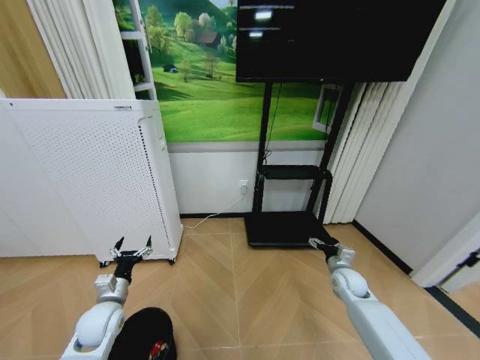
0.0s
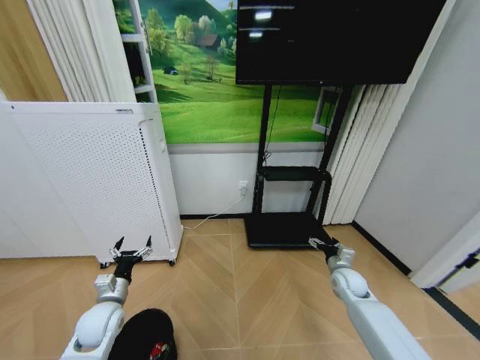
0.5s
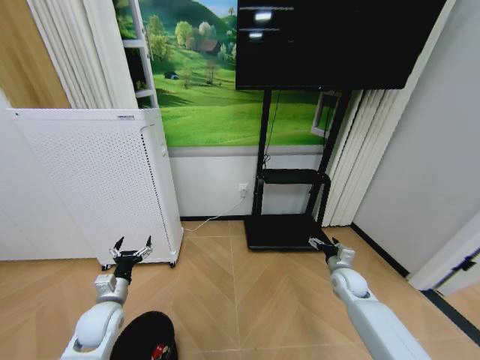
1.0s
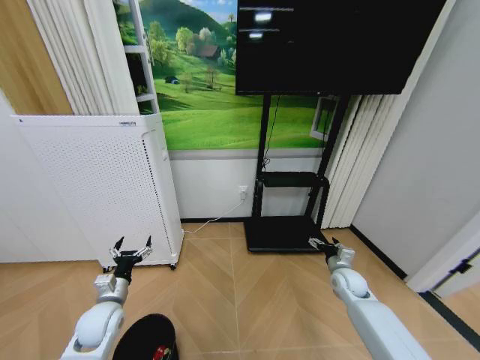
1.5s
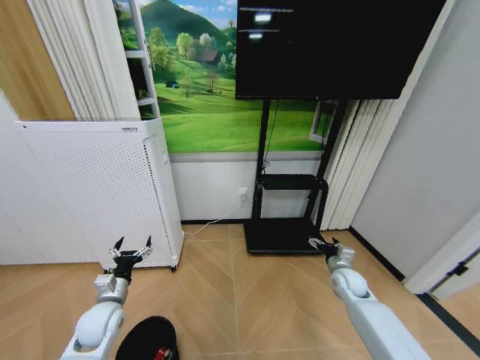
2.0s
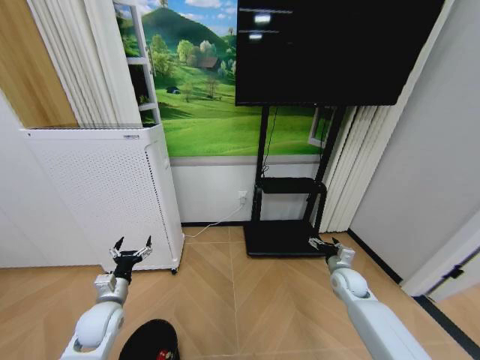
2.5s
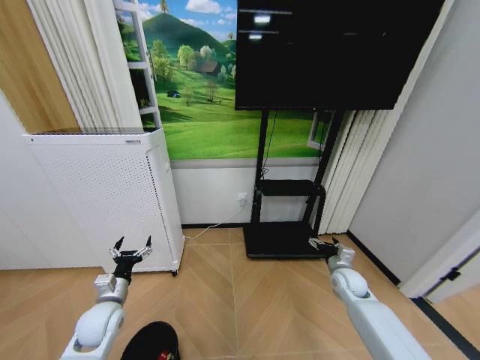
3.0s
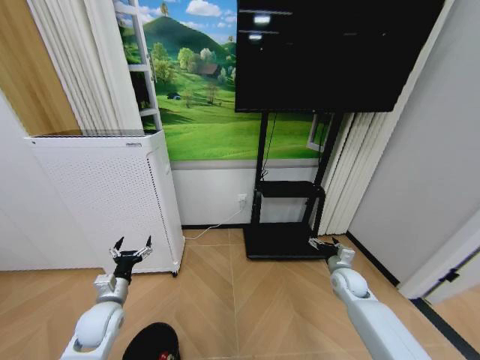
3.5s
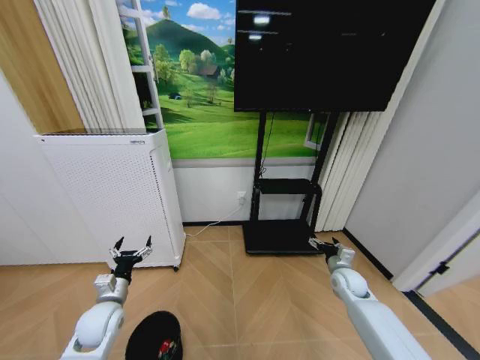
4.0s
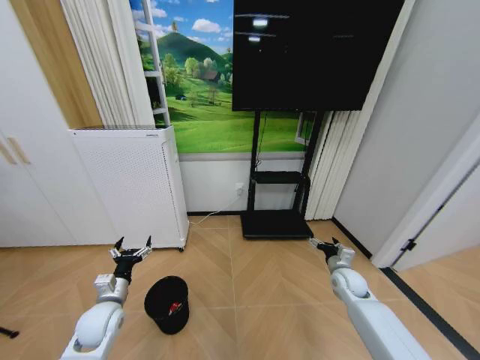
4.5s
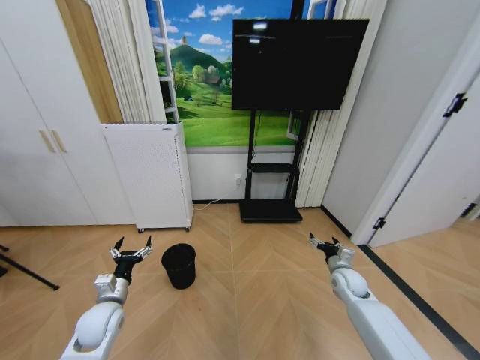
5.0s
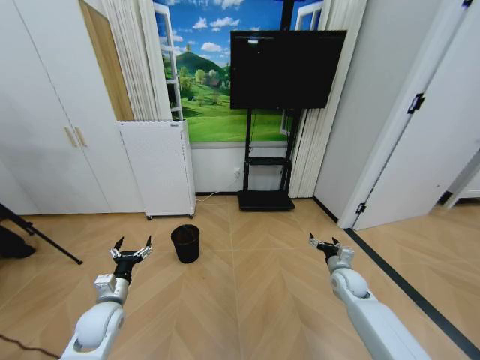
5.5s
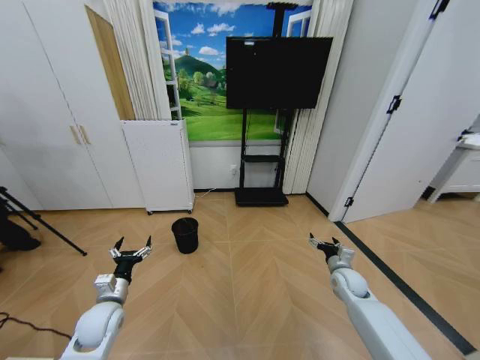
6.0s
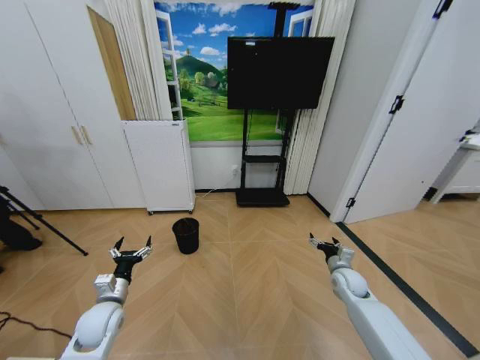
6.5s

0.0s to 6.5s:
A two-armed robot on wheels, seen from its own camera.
Task of the whole recording: Pick up the trash bin and place the garbage on the floor into it.
0.0s to 2.0s: Neither gripper changes place.

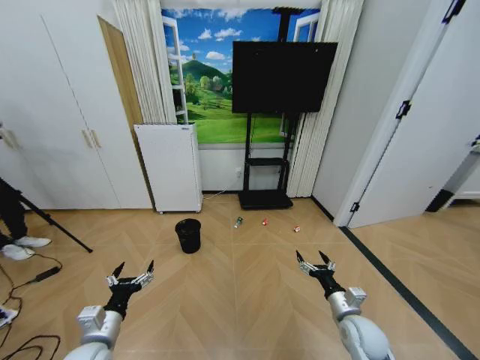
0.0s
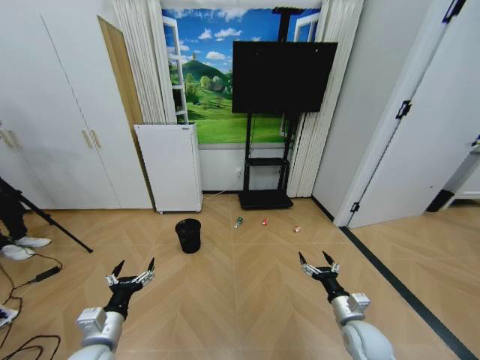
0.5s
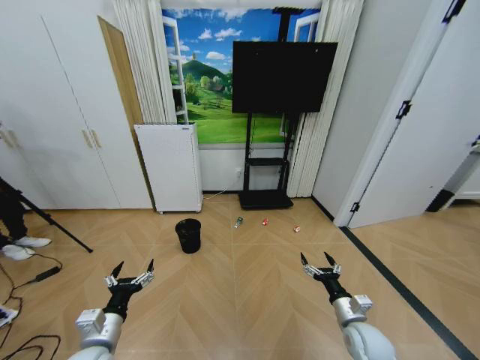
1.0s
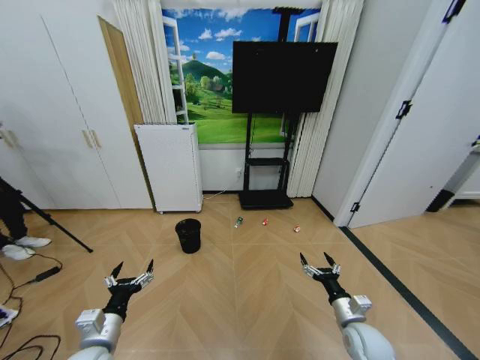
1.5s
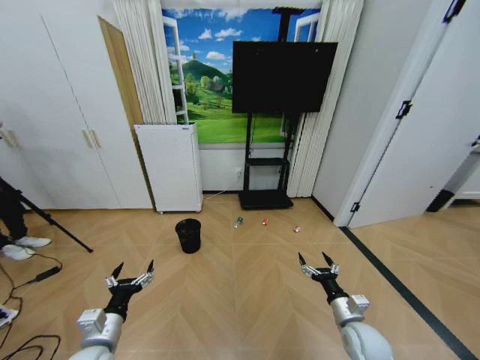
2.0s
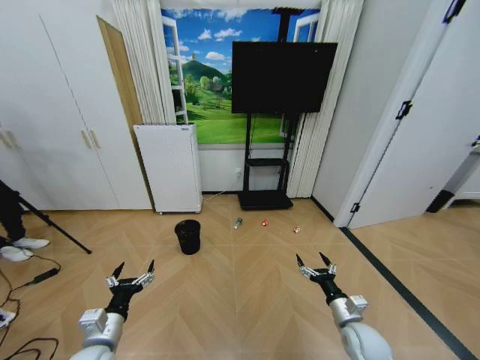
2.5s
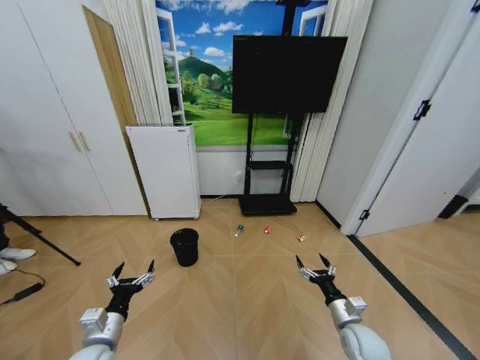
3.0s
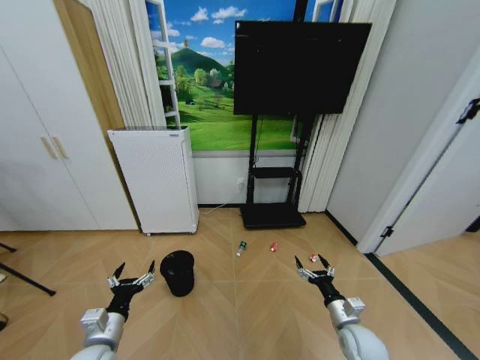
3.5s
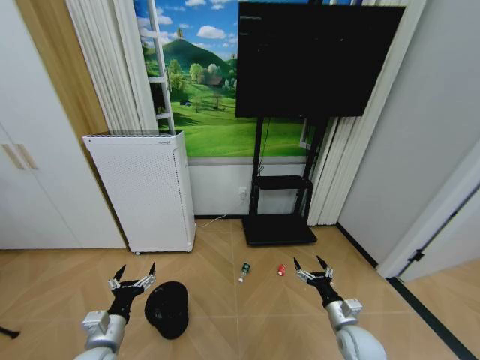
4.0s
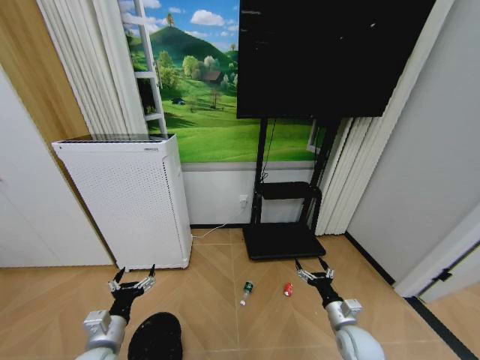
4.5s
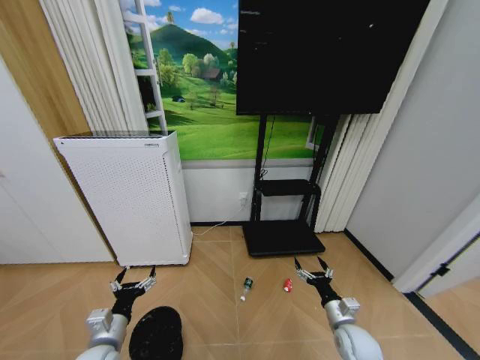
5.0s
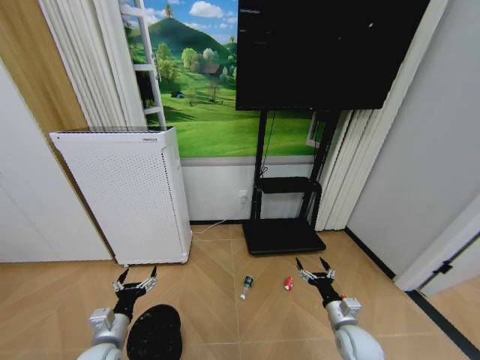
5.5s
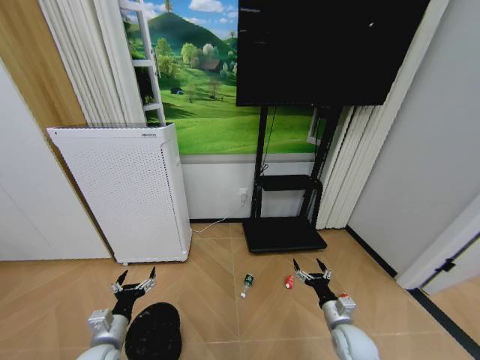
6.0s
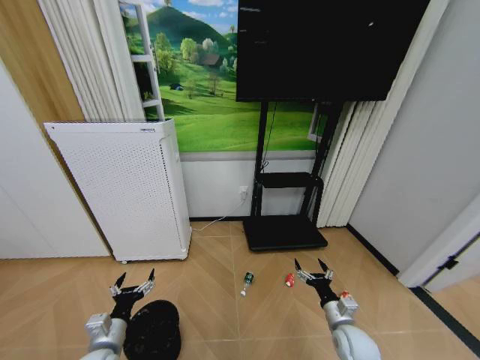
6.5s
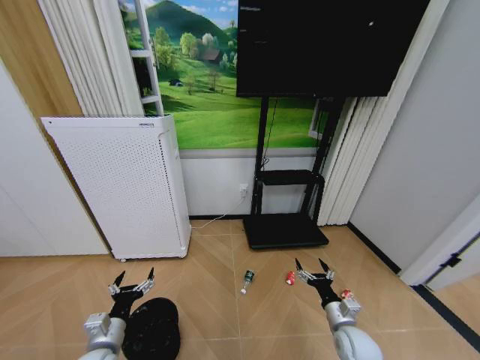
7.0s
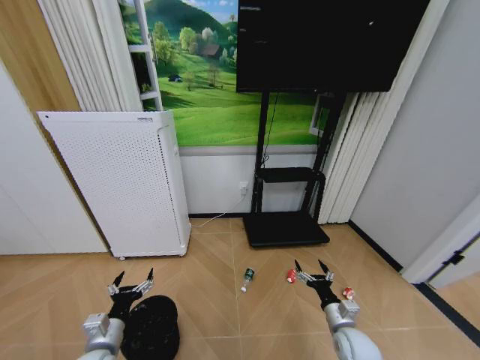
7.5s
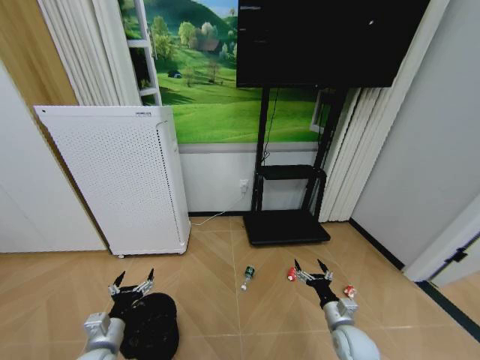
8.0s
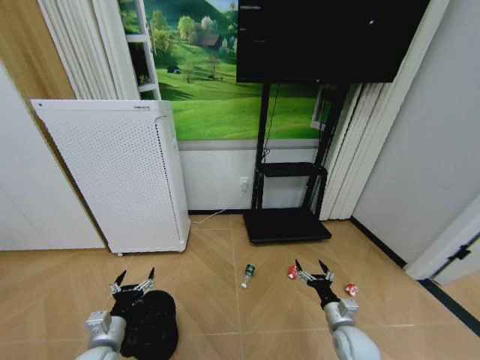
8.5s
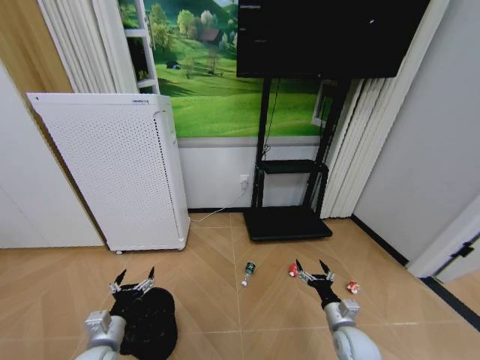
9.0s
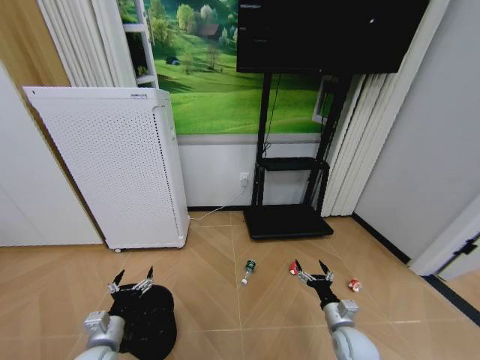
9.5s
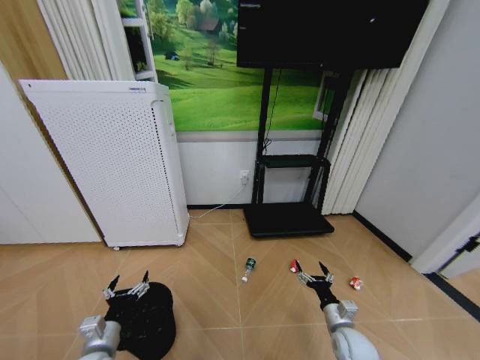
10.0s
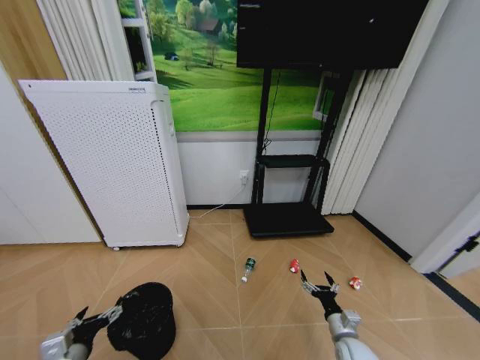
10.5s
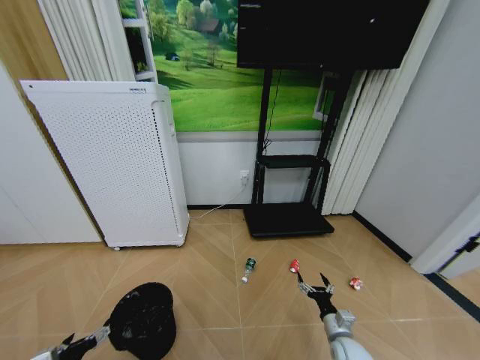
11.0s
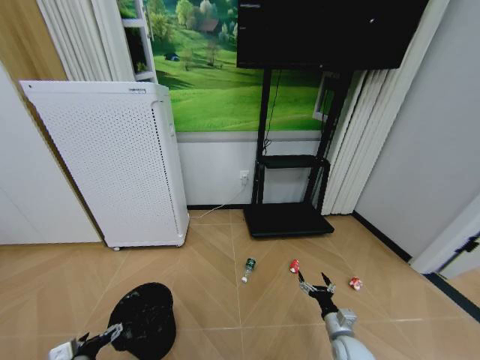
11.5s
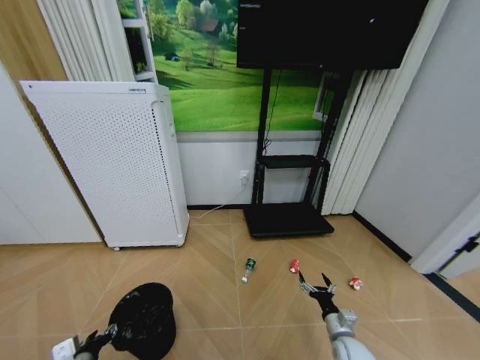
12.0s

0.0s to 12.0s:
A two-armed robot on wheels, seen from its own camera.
Task of the whole recording: Pick up the trash bin and place the garbage on the floor into it.
6.0s to 10.0s: Both grippers stay about where they are.
10.0s to 12.0s: The left gripper closes up.

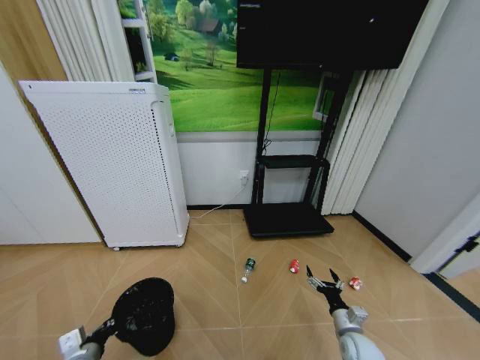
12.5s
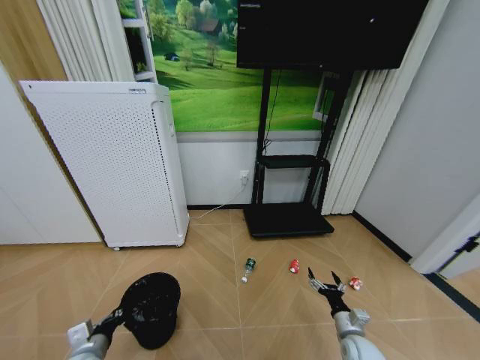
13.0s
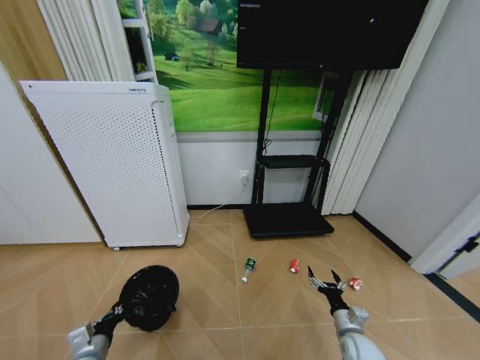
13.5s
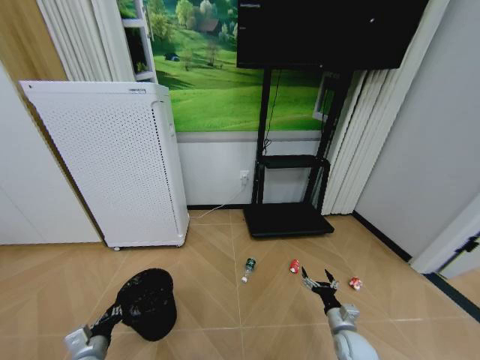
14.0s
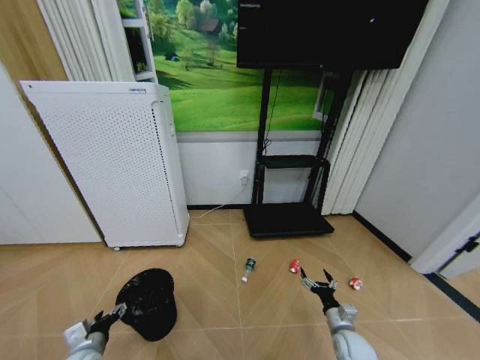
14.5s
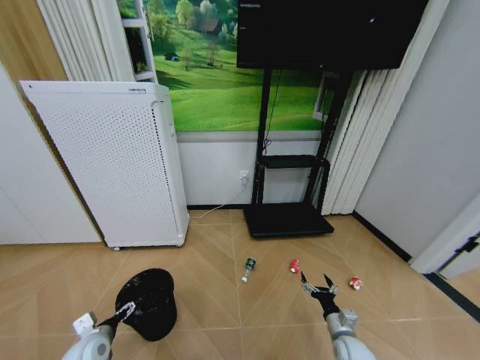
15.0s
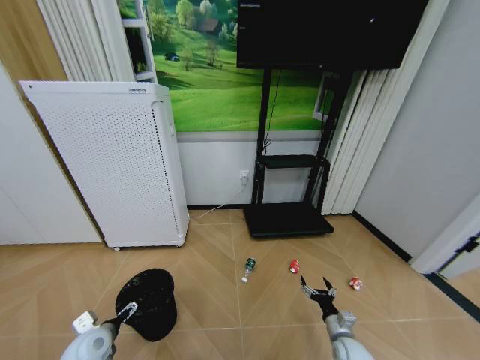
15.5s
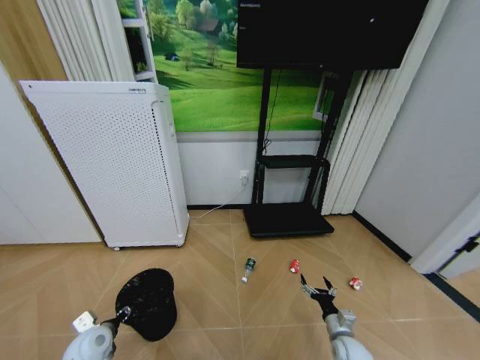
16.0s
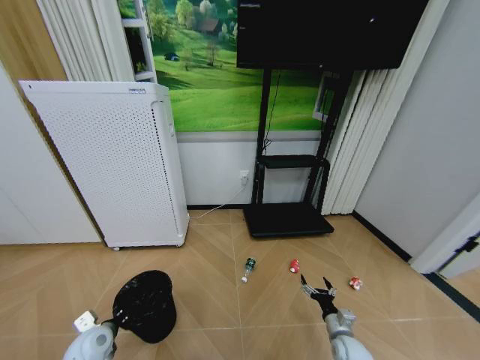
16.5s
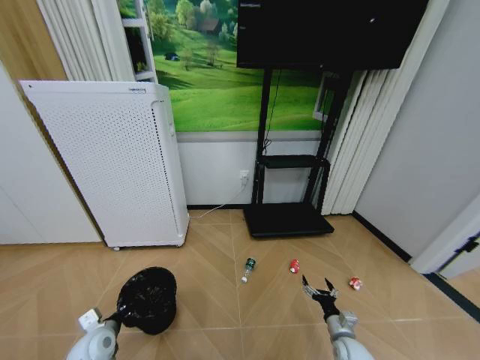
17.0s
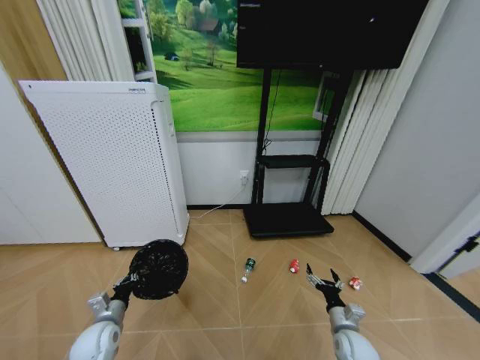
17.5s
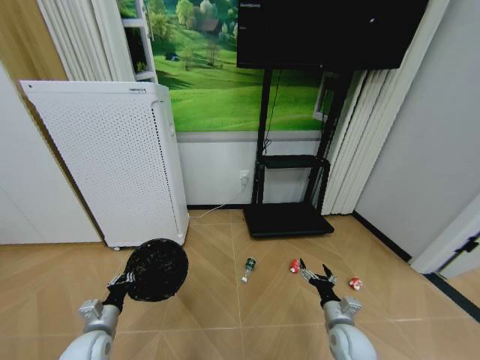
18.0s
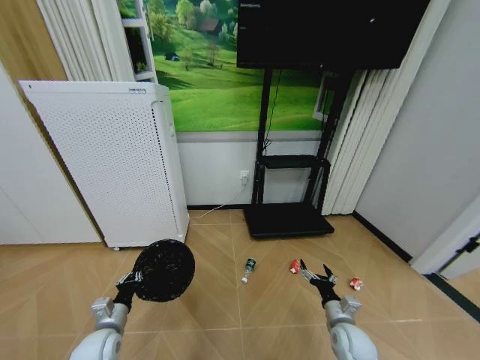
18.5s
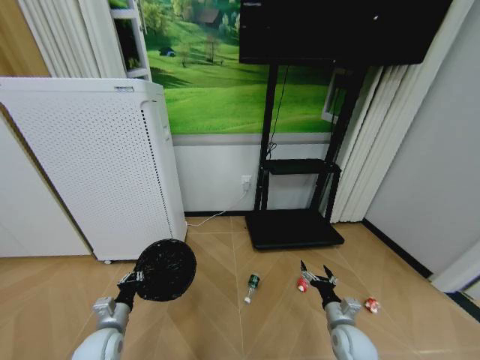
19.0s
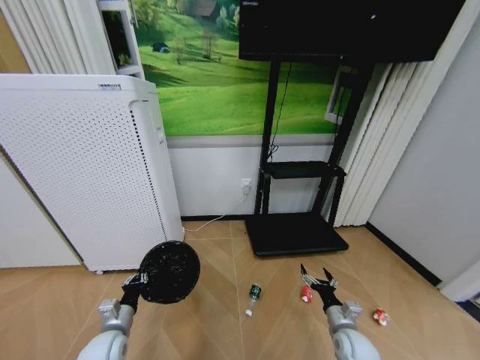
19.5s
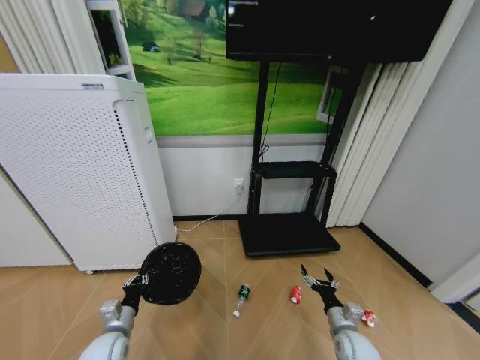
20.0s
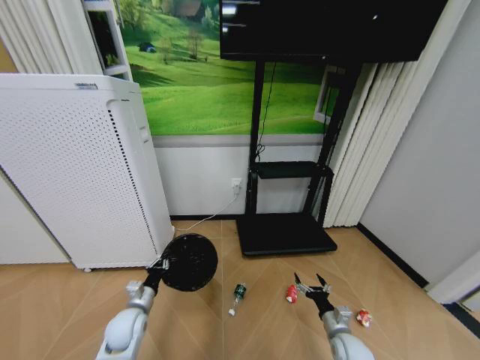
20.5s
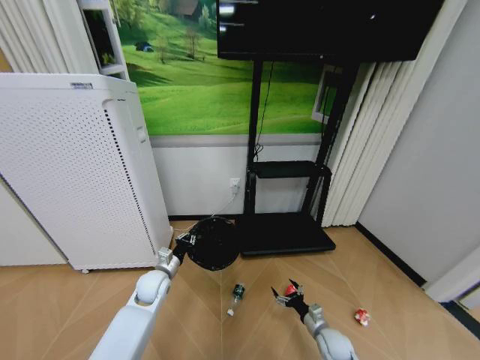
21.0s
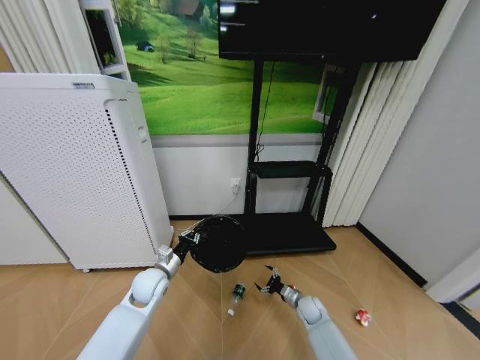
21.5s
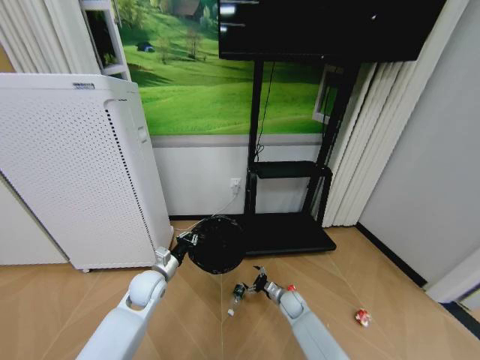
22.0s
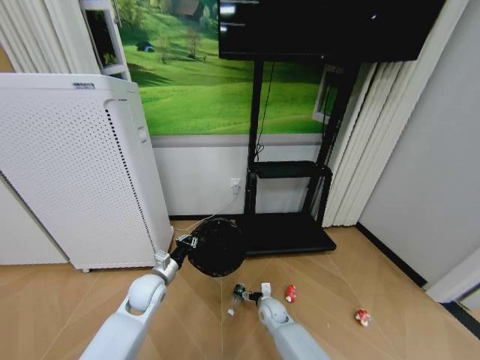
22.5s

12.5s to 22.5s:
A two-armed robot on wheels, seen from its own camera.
Task of the whole recording: Pick up the trash bin and place the garbage on the floor into it.
12.5s to 14.5s: The left gripper opens up.
14.5s to 16.5s: The left gripper closes its fingers.
16.5s to 18.5s: The right gripper is displaced upward by roughly 10 cm.
18.5s to 20.5s: The right gripper goes some 5 cm downward, while the left gripper goes about 5 cm forward.
20.5s to 22.5s: The right gripper travels to the left and forward by about 25 cm; the left gripper is displaced upward, forward and to the right by approximately 10 cm.
